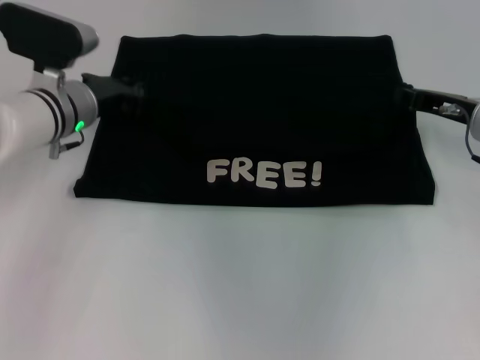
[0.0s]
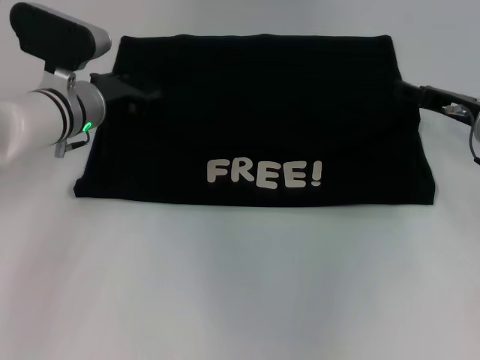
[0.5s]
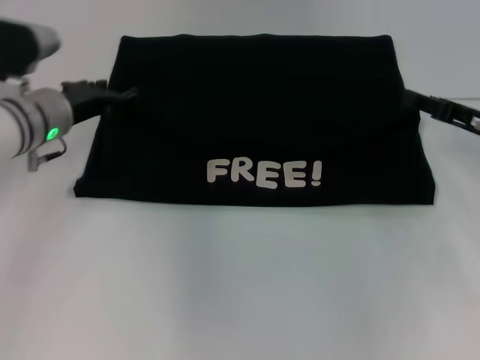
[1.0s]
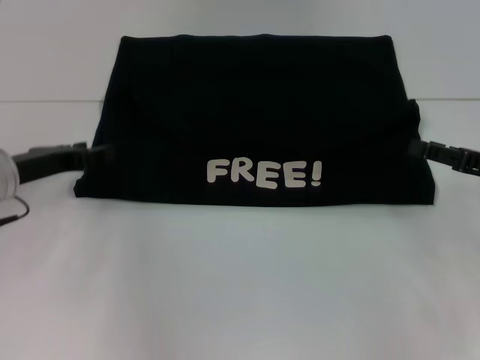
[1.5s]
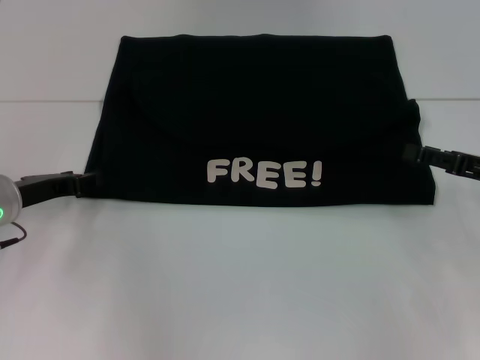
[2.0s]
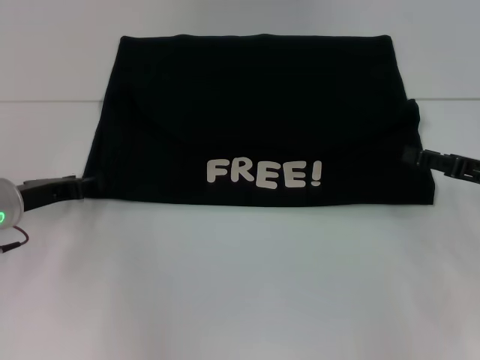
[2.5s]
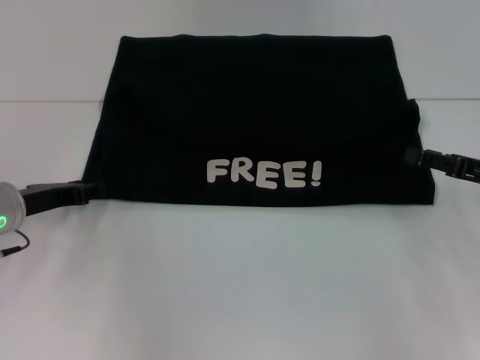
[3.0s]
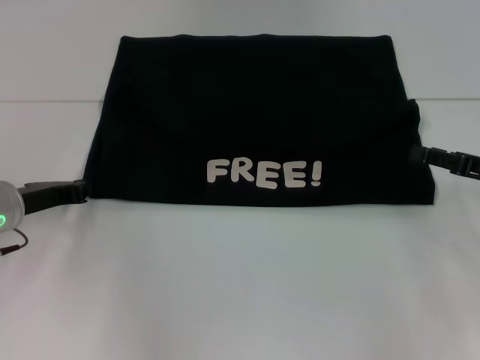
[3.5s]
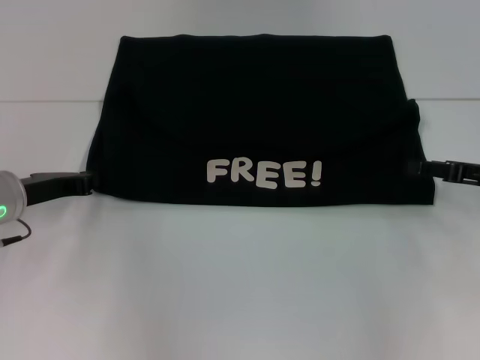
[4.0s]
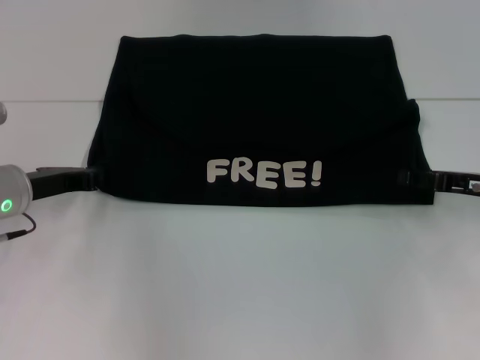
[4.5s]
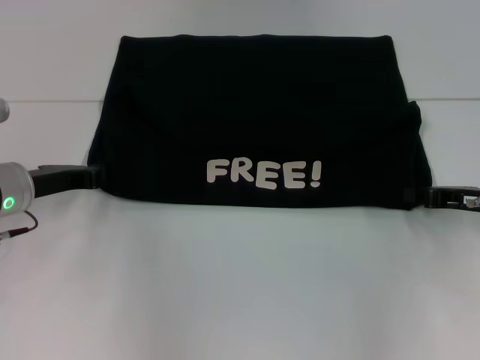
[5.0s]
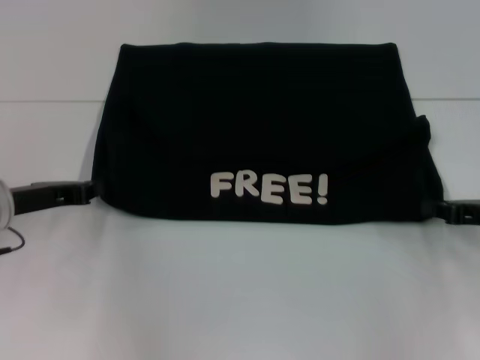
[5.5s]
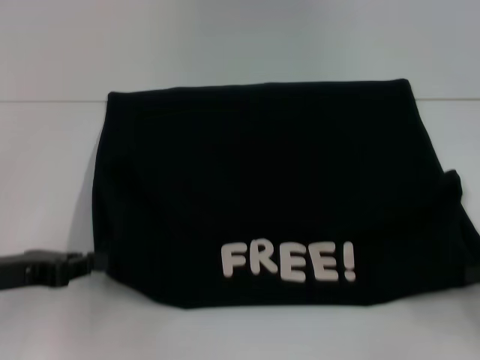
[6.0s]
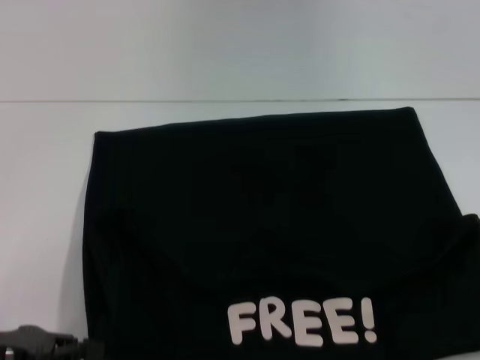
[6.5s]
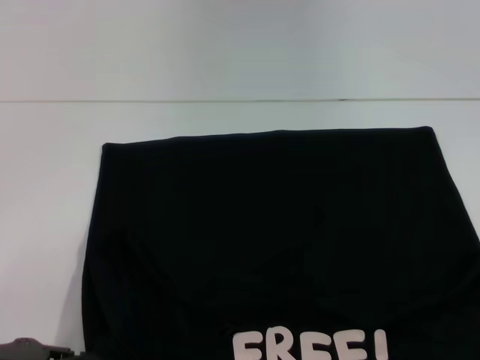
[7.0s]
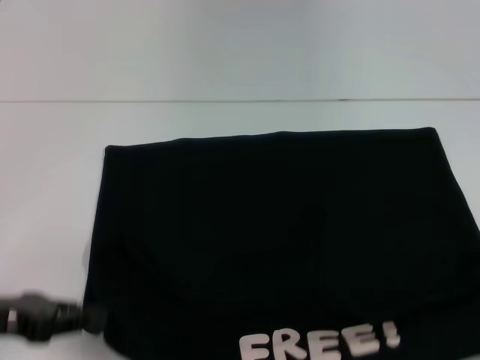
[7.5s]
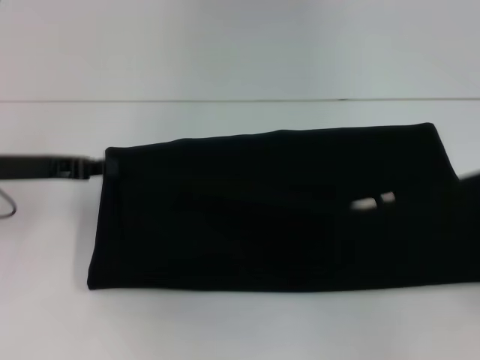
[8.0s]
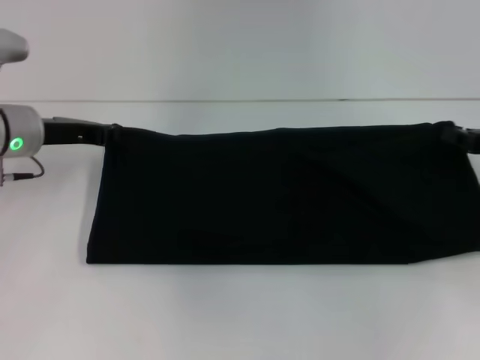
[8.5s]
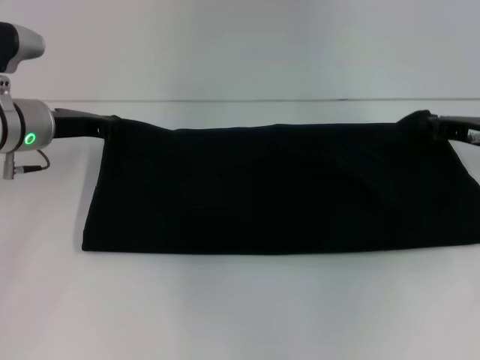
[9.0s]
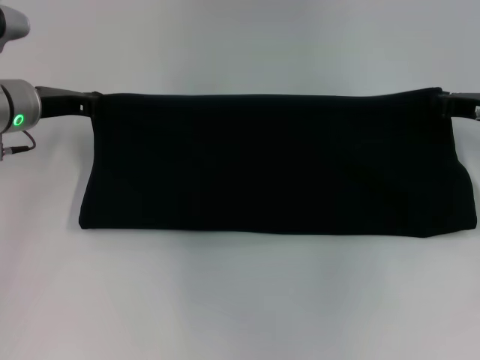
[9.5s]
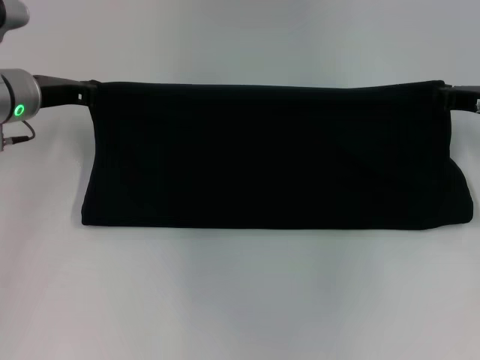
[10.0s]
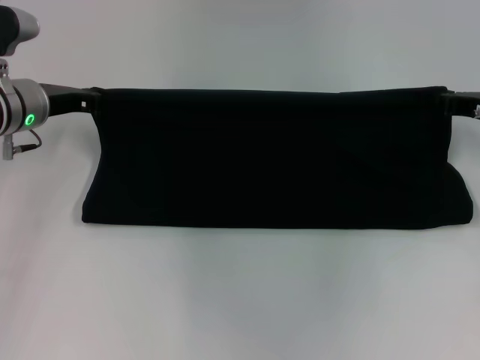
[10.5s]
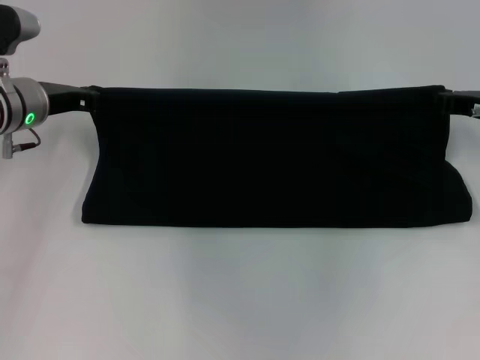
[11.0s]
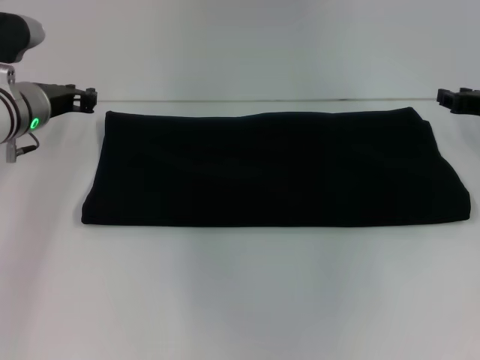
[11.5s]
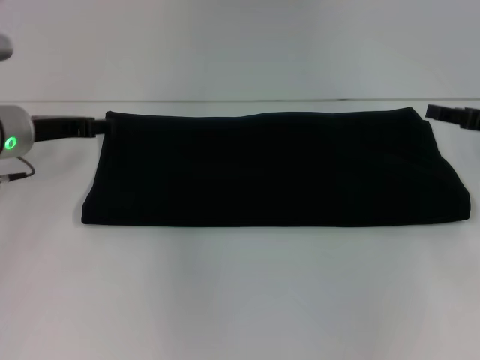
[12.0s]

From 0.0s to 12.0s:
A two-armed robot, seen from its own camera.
Step, from 1.0s to 6.5s: Pull the clothes with your left hand.
Step, from 1.0s to 6.5s: Pull the clothes with your right hand.
Step, from 7.0s to 11.5s: Fold the clothes with your right hand.
From 0.0s to 2.0s: The left gripper shifts some 10 cm backward and to the left, and opens its fingers. The right gripper goes about 10 cm backward and to the right, and opens up.
From 2.0s to 4.0s: The left gripper closes its fingers.
From 4.0s to 6.0s: The left gripper heads backward, covering about 10 cm; the right gripper shifts about 15 cm backward and to the right, and closes.
From 6.0s to 8.0s: The left gripper heads forward, covering some 10 cm, while the right gripper reaches approximately 10 cm backward, then returns.
From 8.0s to 10.0s: The right gripper shifts approximately 20 cm forward and to the left. The left gripper heads forward, covering roughly 10 cm.
From 10.0s to 12.0s: The right gripper opens up, while the left gripper opens.

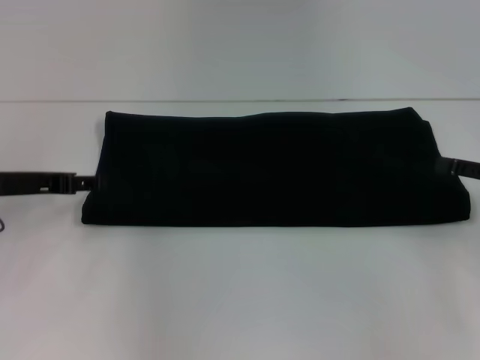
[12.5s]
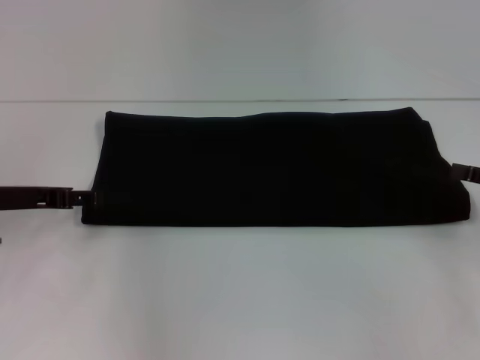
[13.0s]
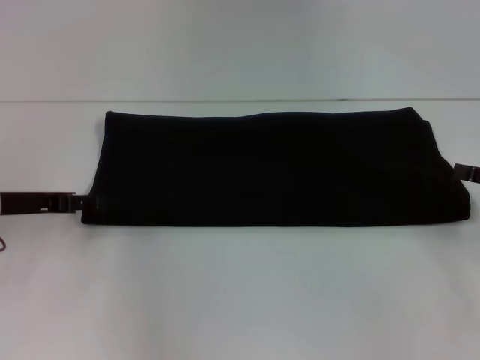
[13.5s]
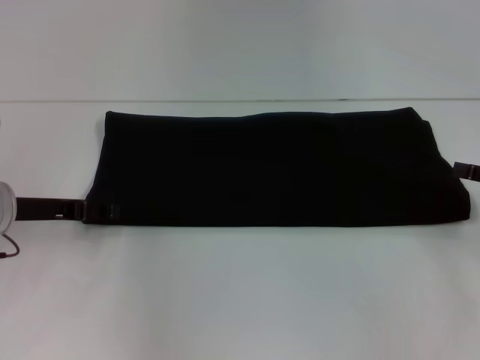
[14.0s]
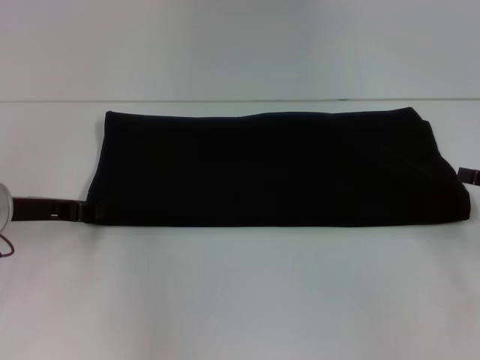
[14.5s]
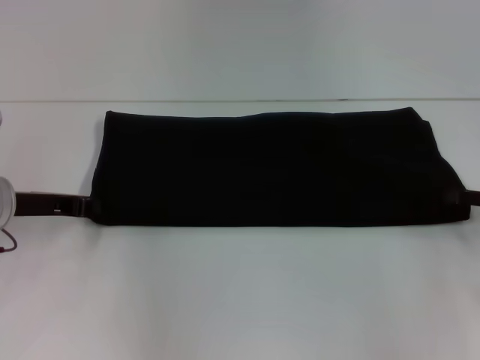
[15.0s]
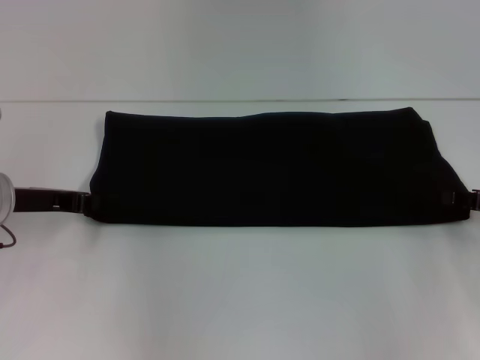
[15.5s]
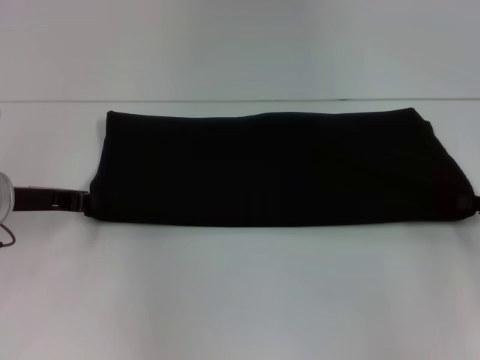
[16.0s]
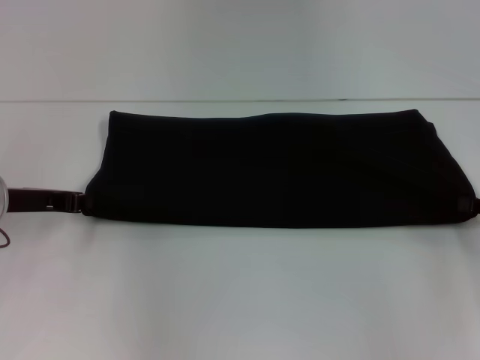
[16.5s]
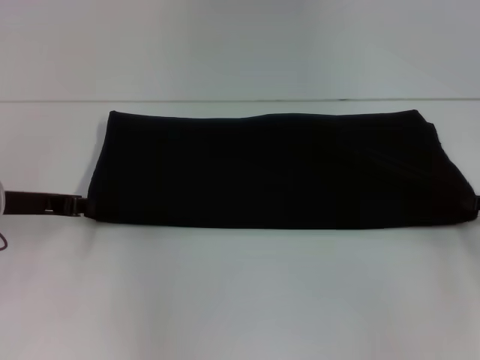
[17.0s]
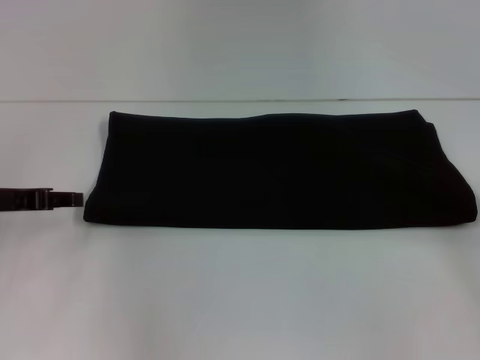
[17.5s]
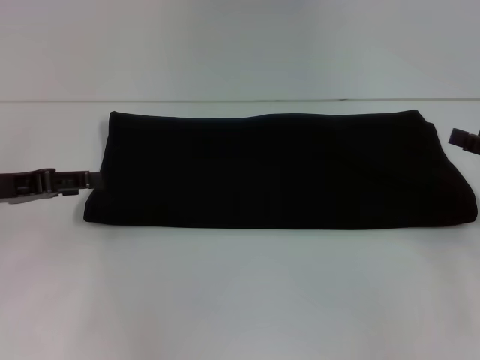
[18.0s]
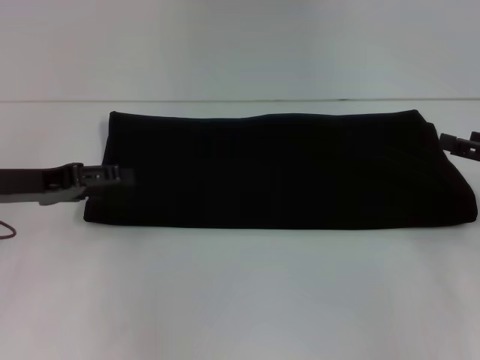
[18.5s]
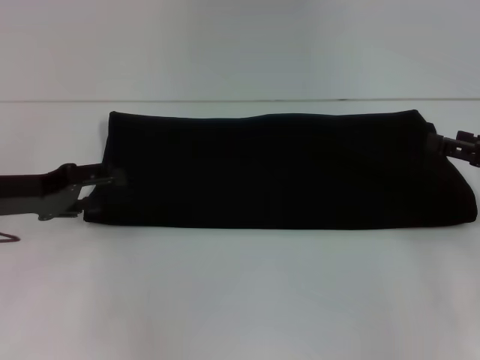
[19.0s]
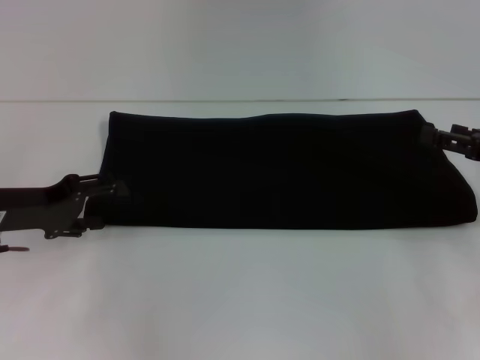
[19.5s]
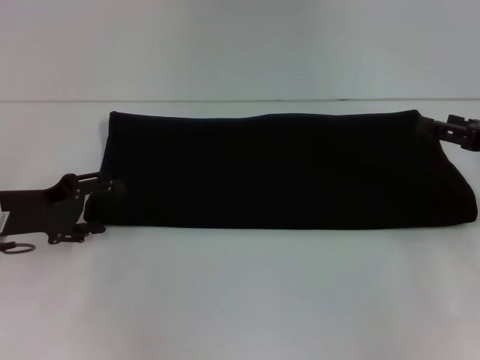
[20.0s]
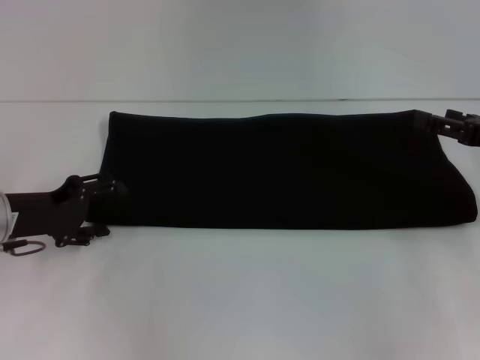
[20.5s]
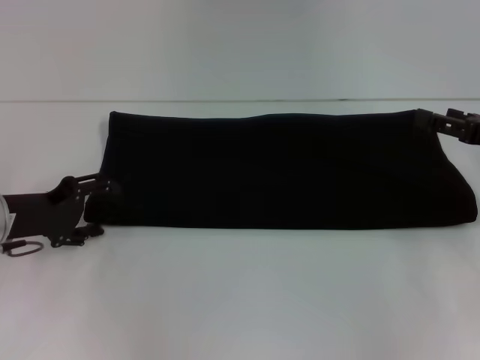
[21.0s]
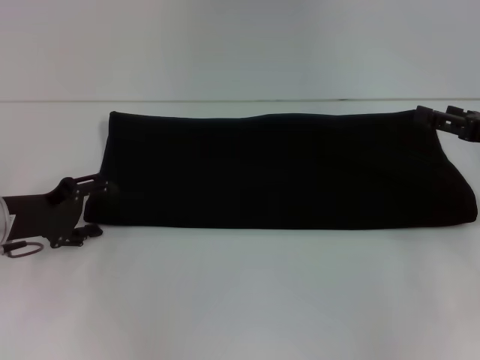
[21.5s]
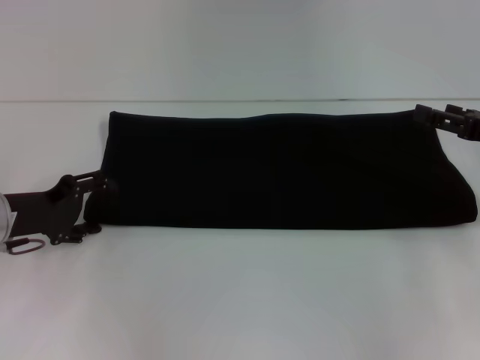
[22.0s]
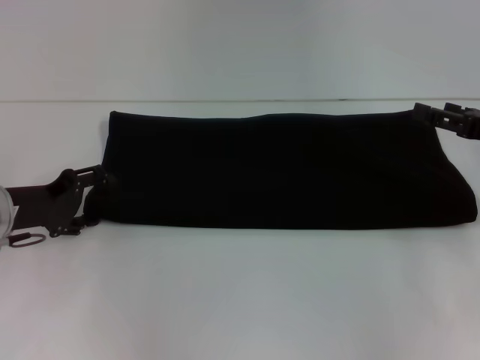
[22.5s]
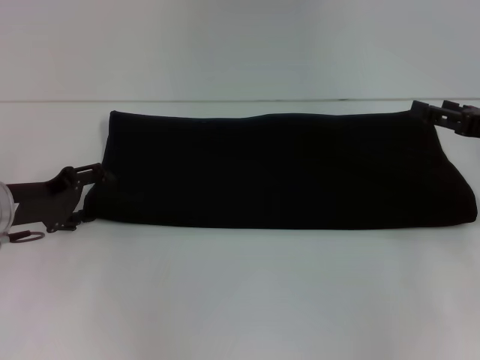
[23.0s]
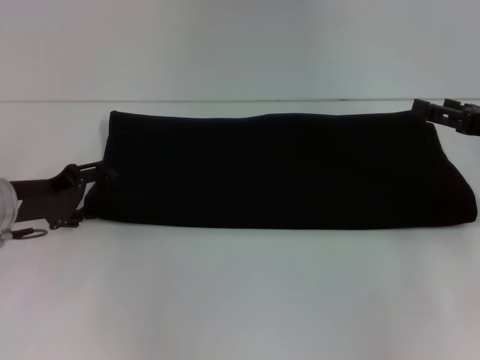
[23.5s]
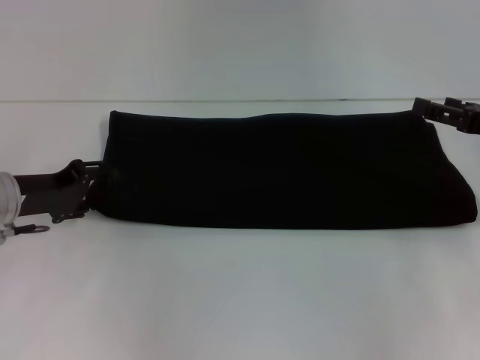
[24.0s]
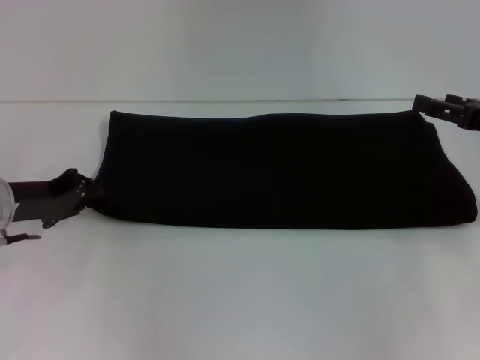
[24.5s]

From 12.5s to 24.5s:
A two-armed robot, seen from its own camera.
From 12.5s to 14.5s: The left gripper closes its fingers.
From 14.5s to 16.5s: The right gripper closes up; the left gripper closes up.
From 16.5s to 18.5s: The right gripper opens up. The left gripper opens.
From 20.5s to 22.5s: There are only small adjustments of the grippers.
From 22.5s to 24.5s: The left gripper closes up.

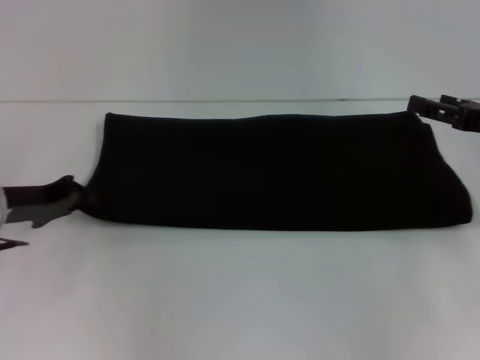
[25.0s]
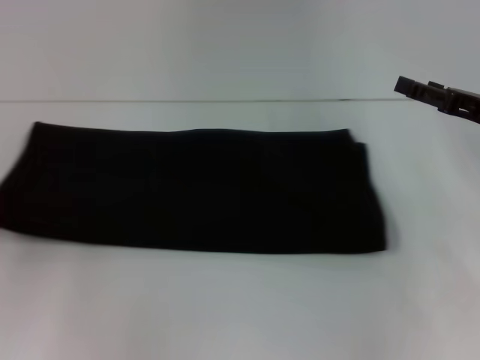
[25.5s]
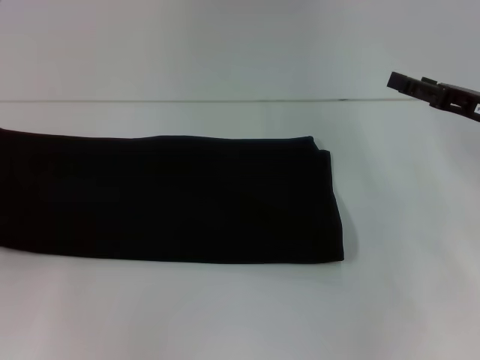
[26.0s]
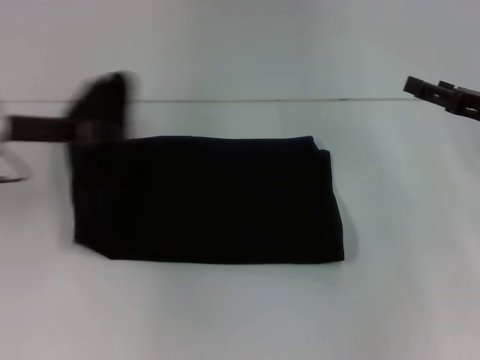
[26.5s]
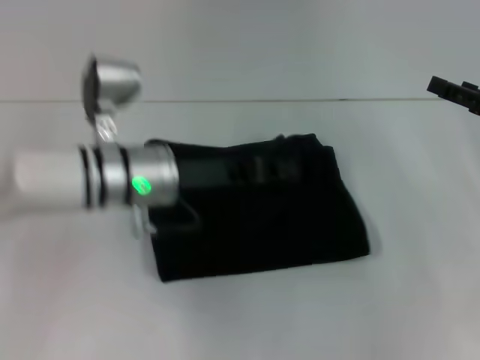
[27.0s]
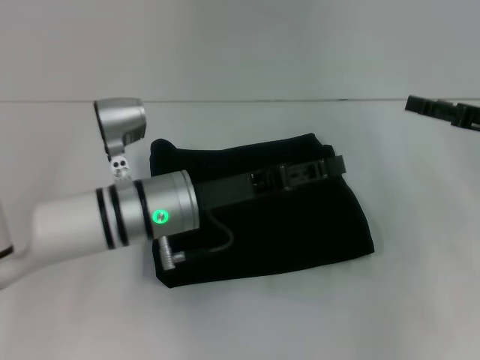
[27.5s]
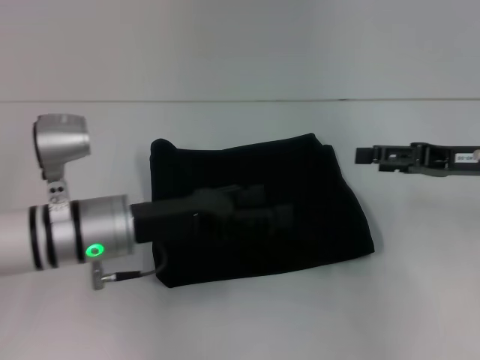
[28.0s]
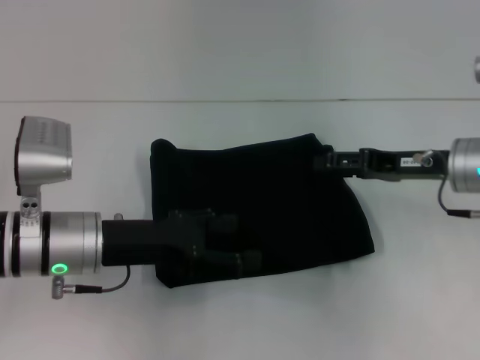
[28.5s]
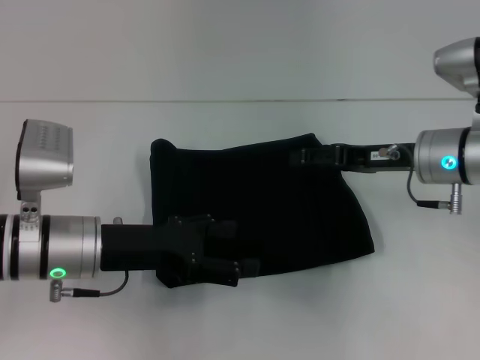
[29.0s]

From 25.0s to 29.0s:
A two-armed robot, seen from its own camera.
Step, from 25.0s to 27.0s: Fold the clothes with your left hand.
From 25.0s to 27.0s: The left gripper goes about 20 cm to the right.
From 27.0s to 29.0s: The left gripper heads to the left and backward, covering about 10 cm, and opens. Meanwhile the right gripper moves to the left, approximately 15 cm.
